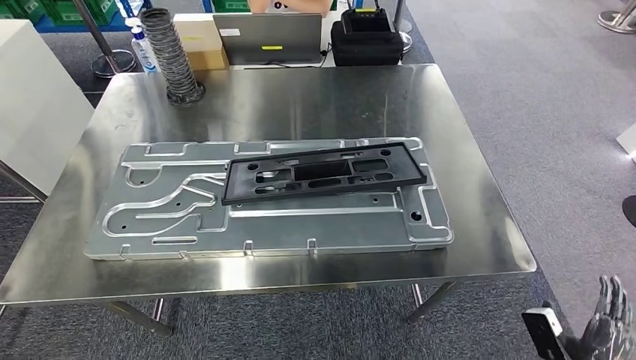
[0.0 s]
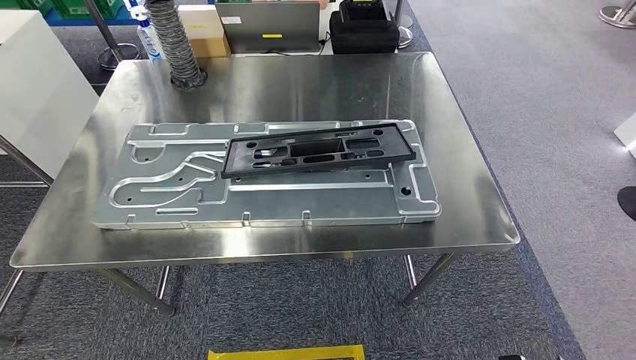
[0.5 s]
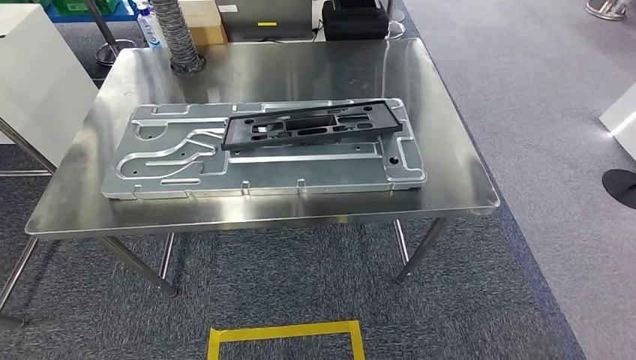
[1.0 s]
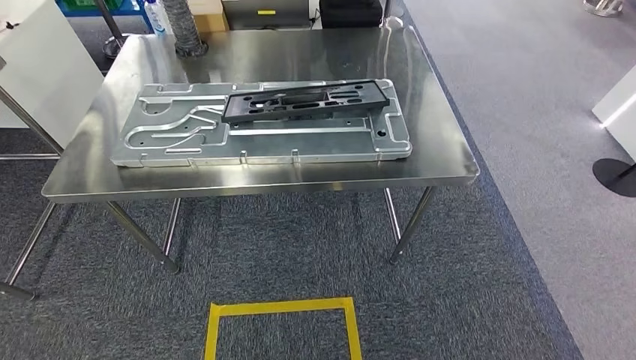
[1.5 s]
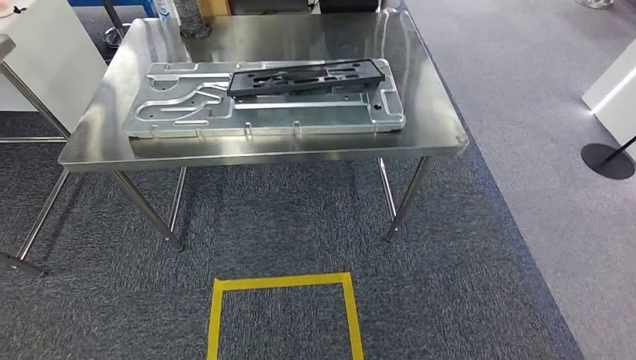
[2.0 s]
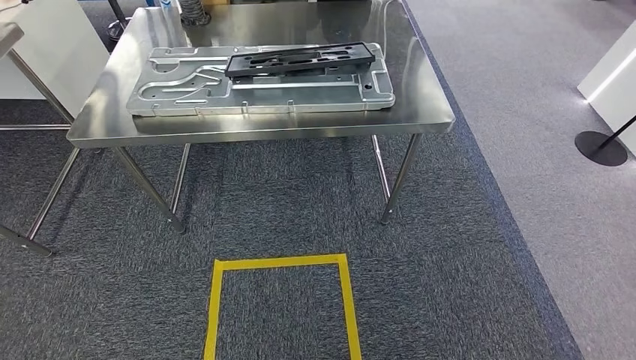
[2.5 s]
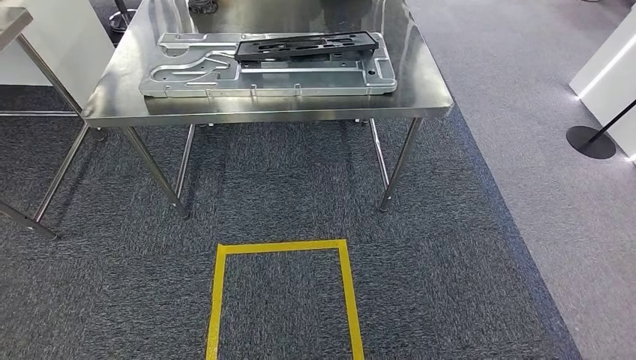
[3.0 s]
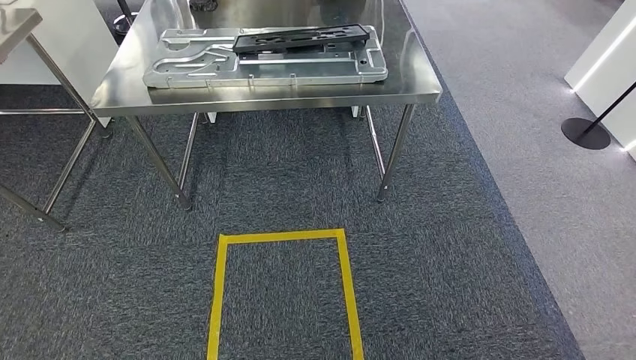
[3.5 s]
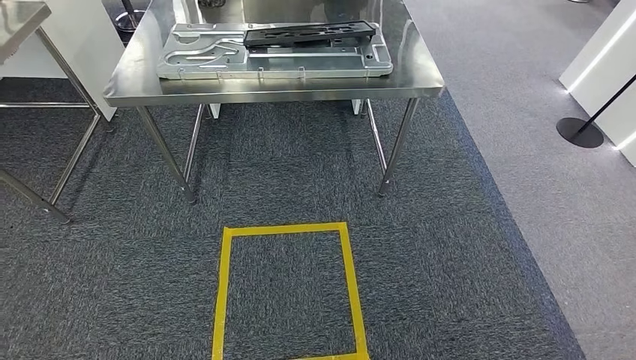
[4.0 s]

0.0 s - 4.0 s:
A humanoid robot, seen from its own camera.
Step, 0.0 s - 4.0 s: Move to the initial position of the shelf.

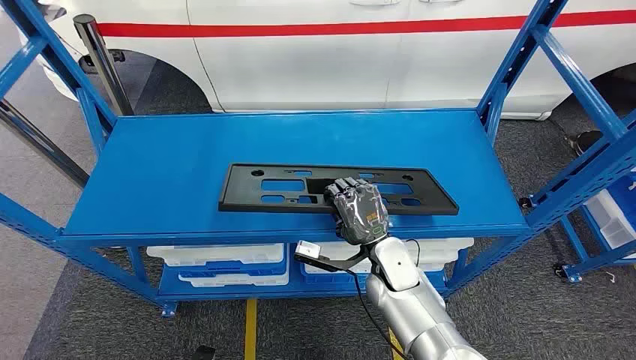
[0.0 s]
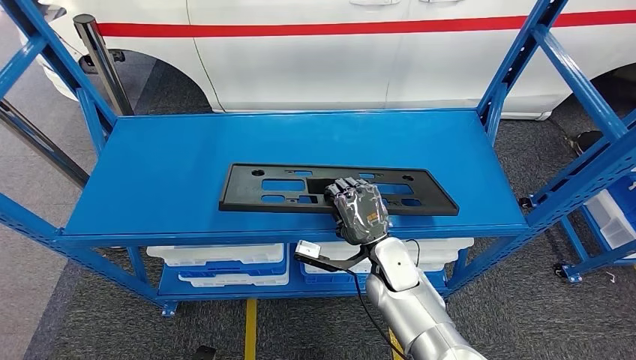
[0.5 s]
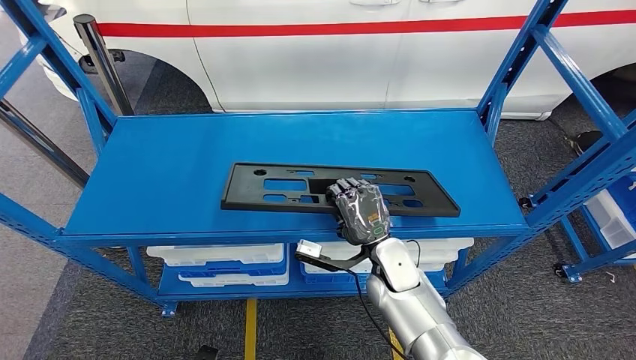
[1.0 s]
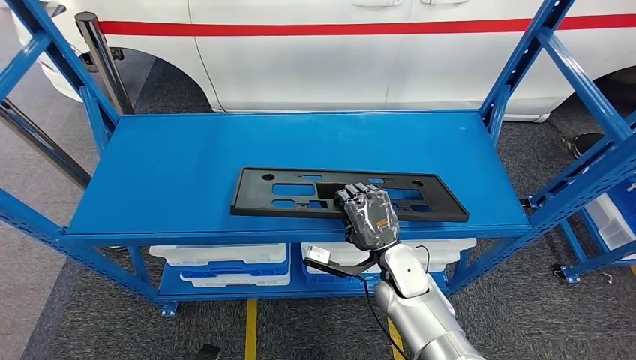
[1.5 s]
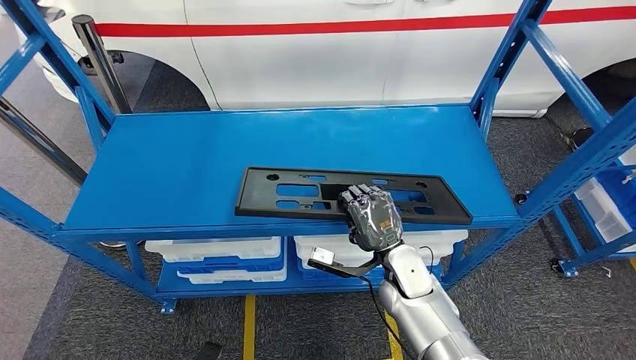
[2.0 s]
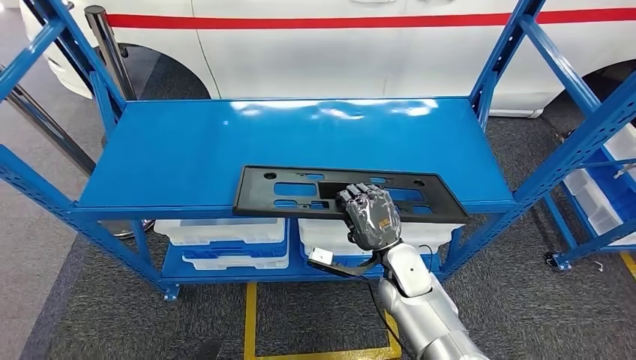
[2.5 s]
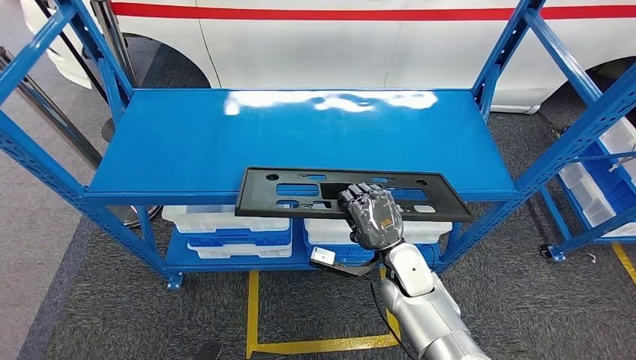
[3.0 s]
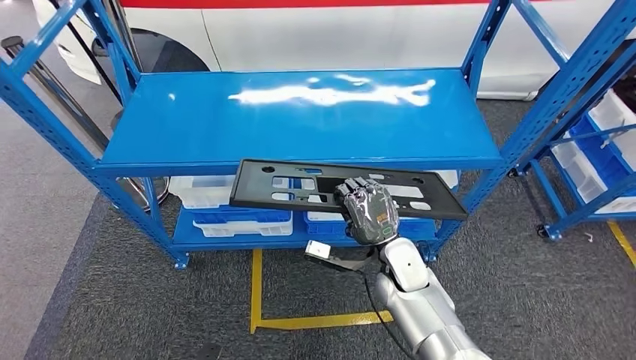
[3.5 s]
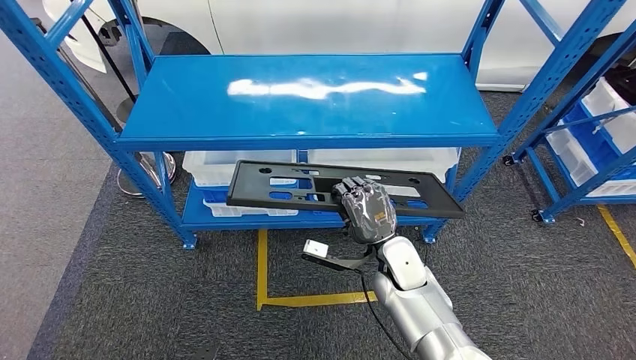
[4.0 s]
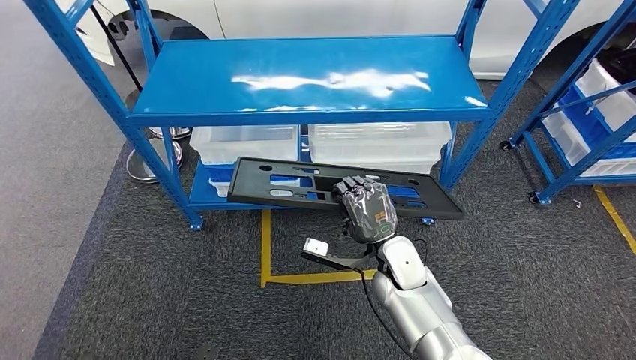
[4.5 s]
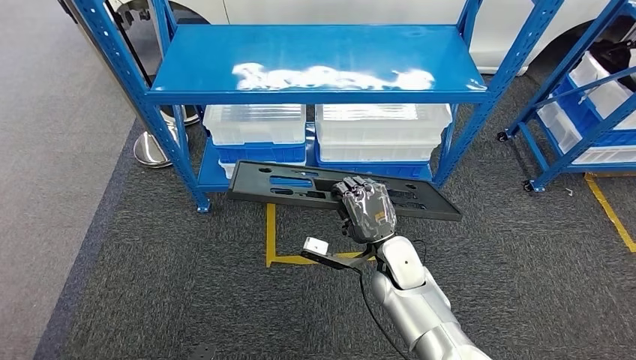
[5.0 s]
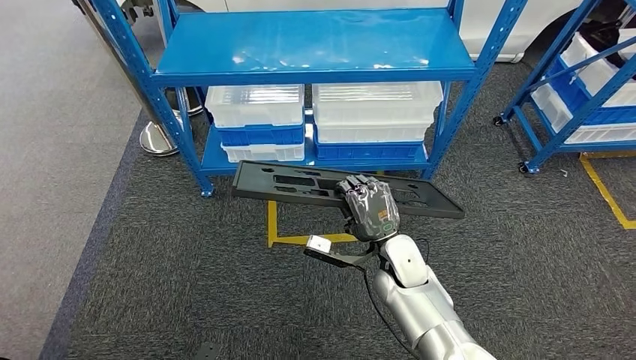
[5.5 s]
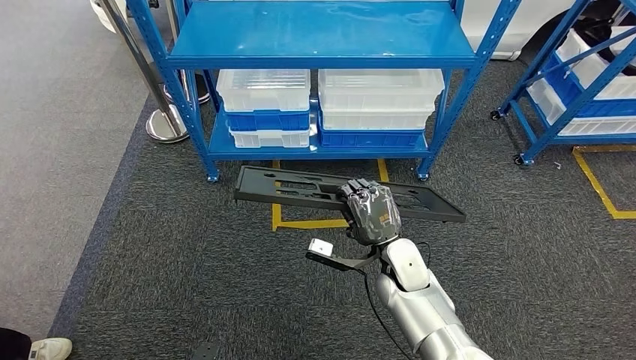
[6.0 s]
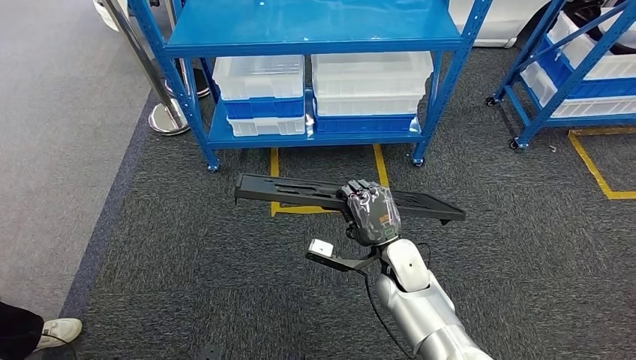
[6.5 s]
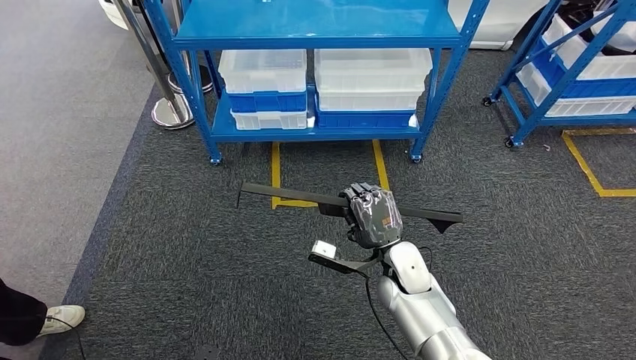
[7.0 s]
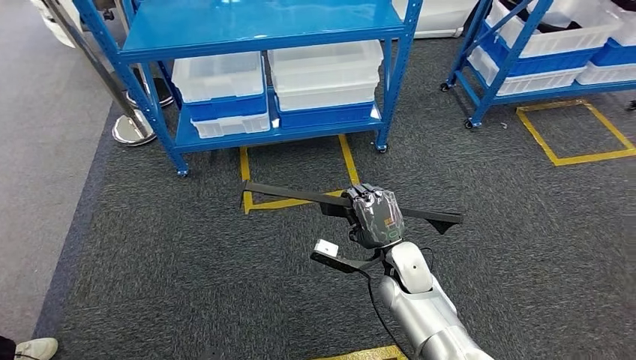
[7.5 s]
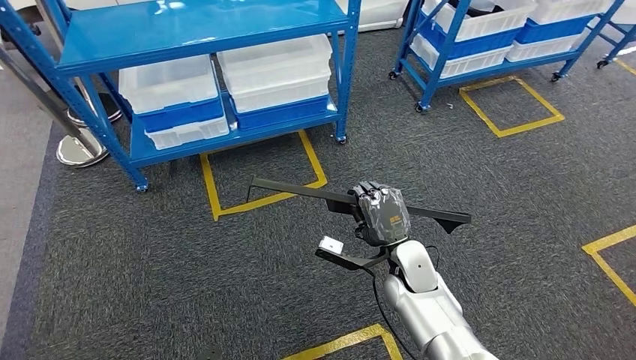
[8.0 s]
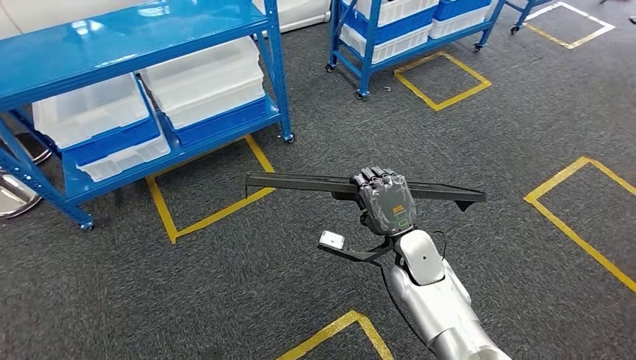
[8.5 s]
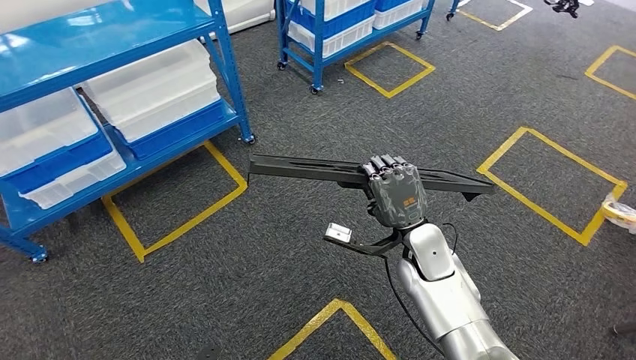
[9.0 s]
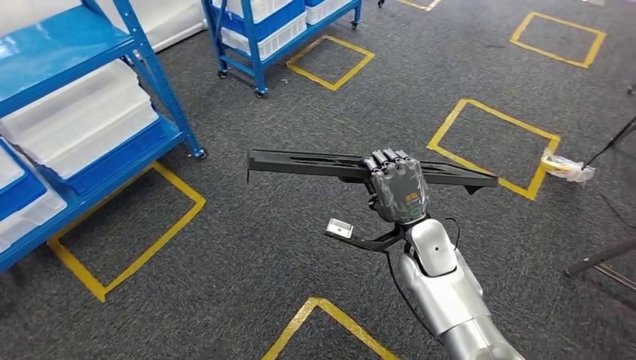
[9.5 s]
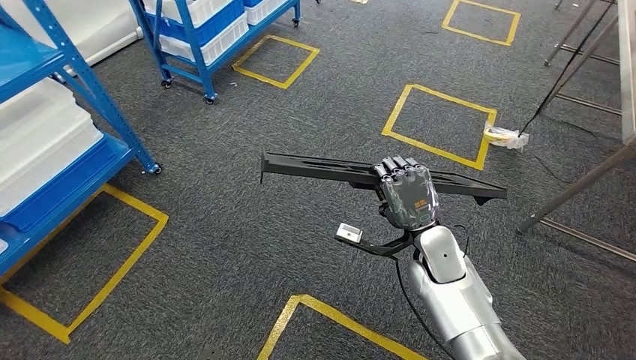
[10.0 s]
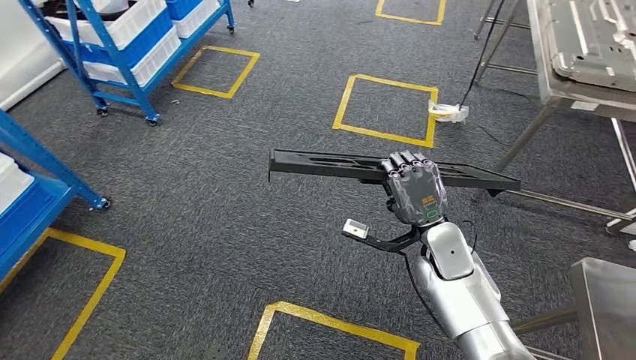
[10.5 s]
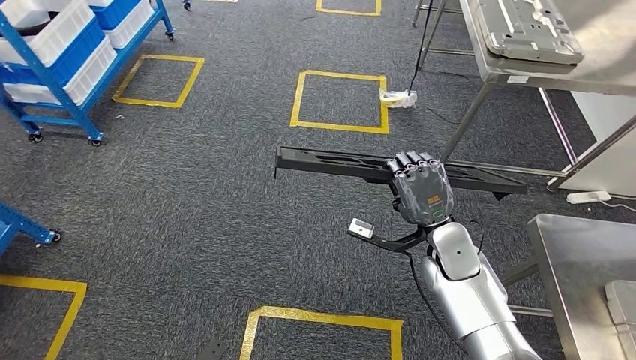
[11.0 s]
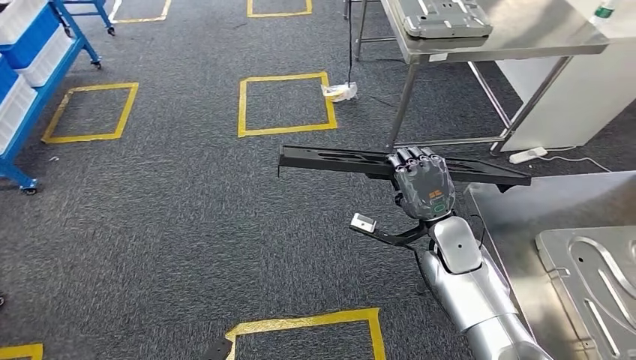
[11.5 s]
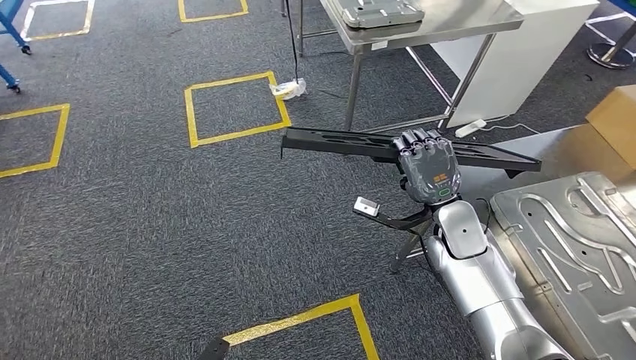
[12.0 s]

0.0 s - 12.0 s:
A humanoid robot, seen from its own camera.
Step, 0.0 s - 4.5 s: Pick up the large material from the shelf.

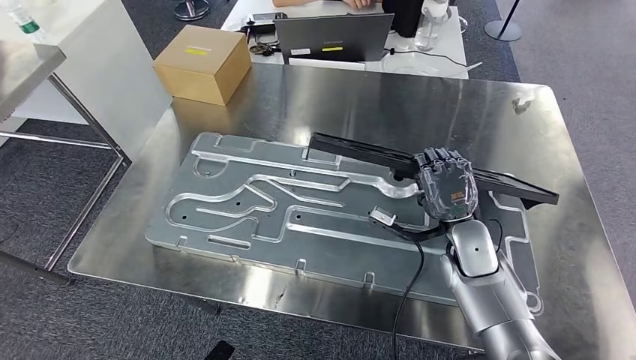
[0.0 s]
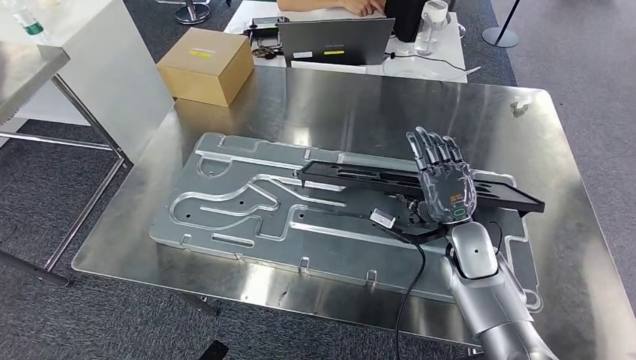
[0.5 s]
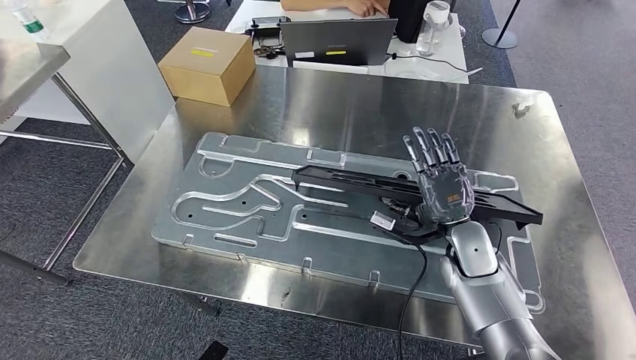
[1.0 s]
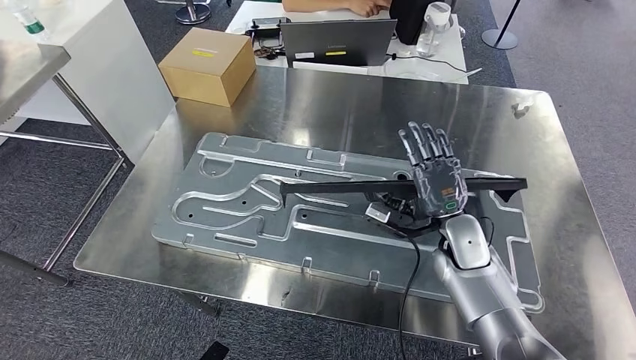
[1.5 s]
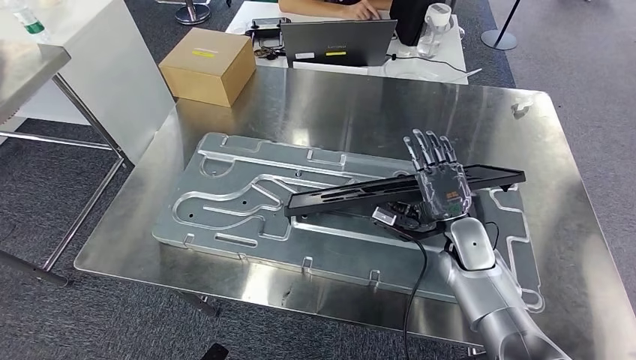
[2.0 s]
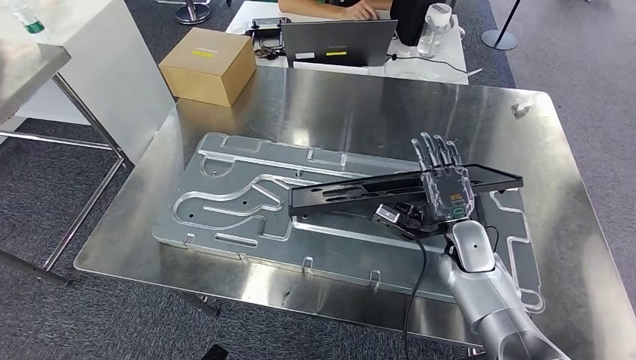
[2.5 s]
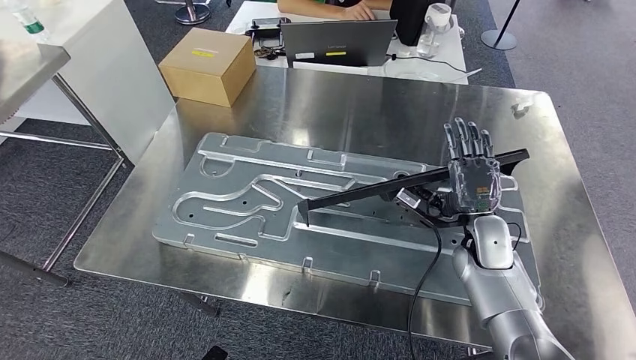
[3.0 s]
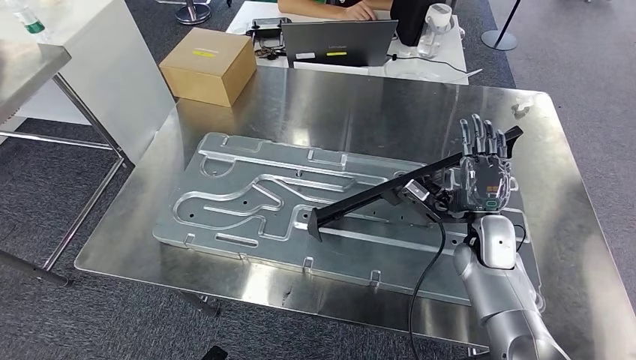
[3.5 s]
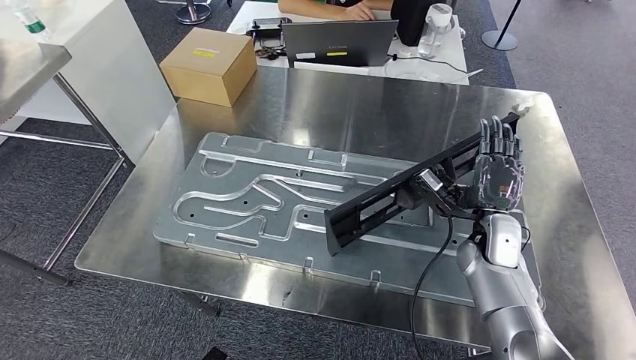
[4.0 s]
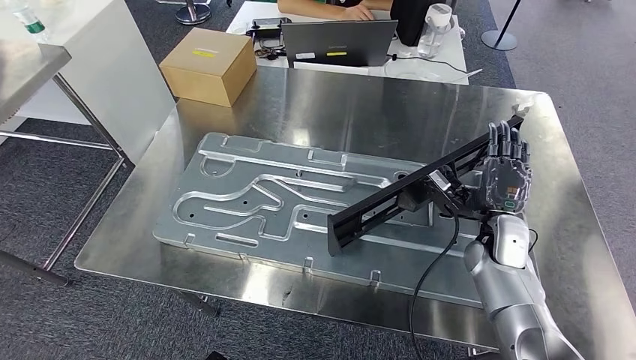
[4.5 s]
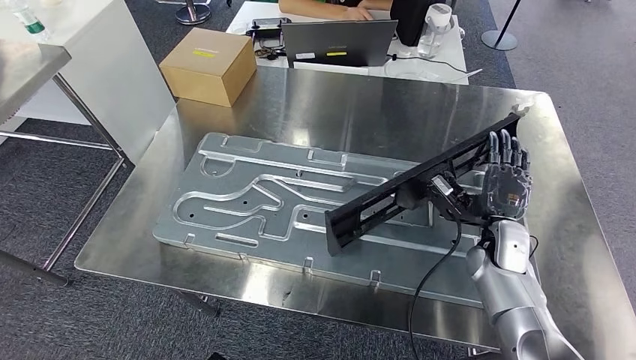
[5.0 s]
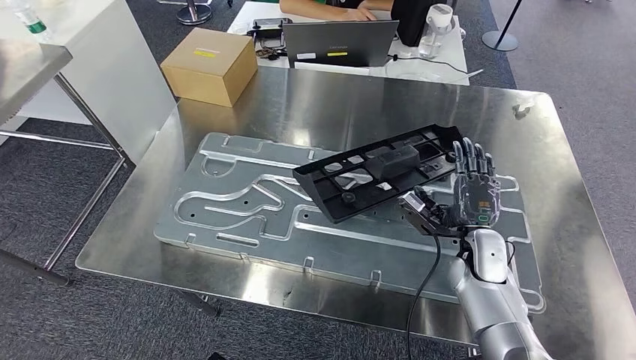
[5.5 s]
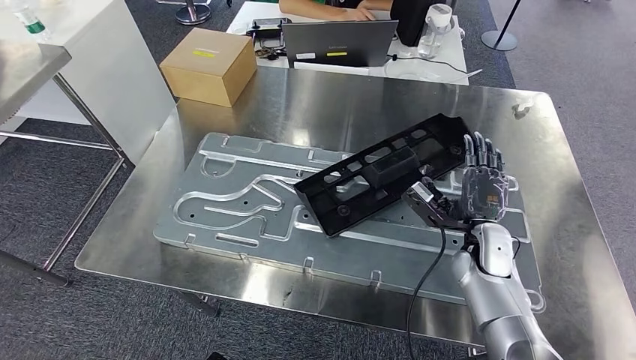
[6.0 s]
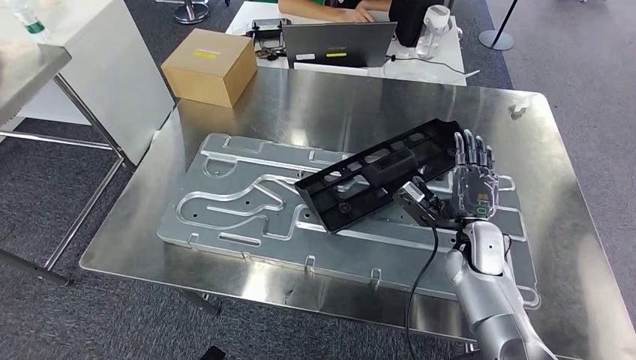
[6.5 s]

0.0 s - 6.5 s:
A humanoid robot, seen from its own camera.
2.0 s - 4.5 s: The right hand moves to the right, some 5 cm.
4.5 s - 6.5 s: The hands stay close to where they were, moving slightly.
